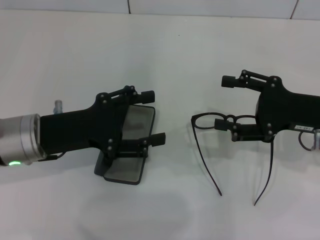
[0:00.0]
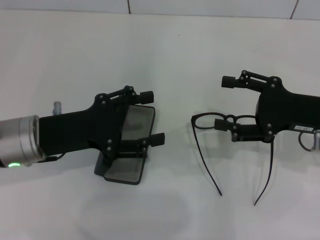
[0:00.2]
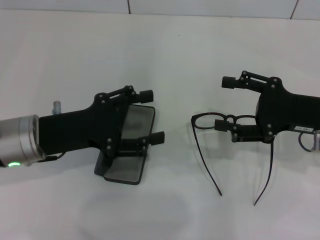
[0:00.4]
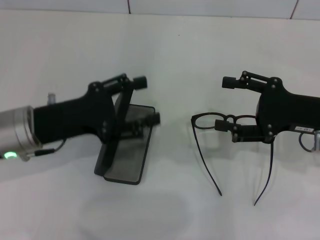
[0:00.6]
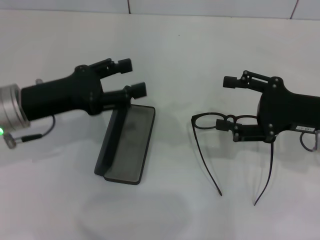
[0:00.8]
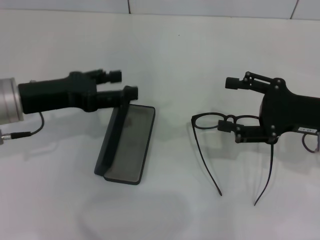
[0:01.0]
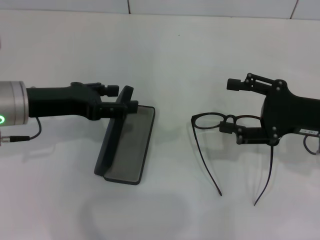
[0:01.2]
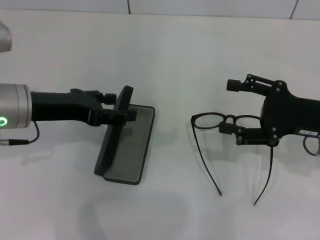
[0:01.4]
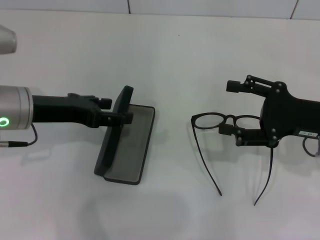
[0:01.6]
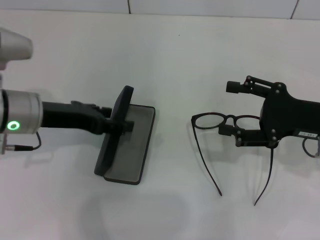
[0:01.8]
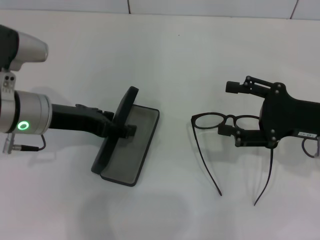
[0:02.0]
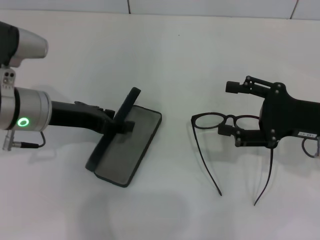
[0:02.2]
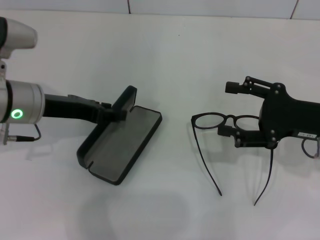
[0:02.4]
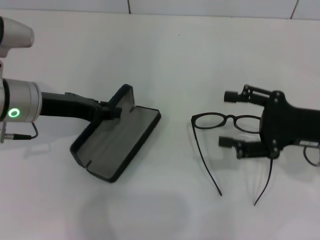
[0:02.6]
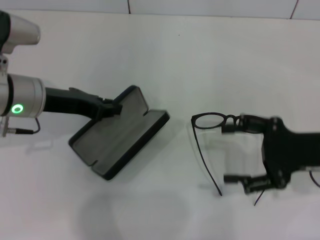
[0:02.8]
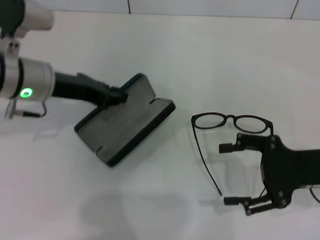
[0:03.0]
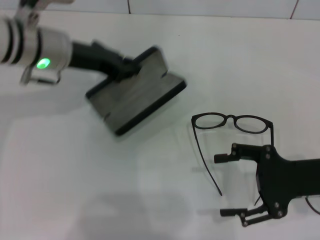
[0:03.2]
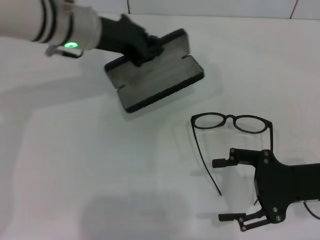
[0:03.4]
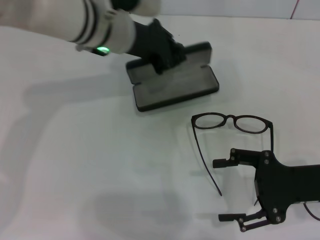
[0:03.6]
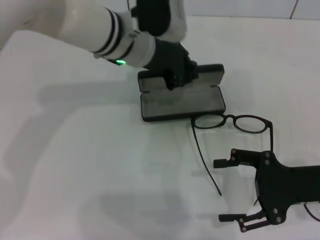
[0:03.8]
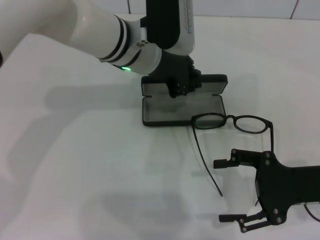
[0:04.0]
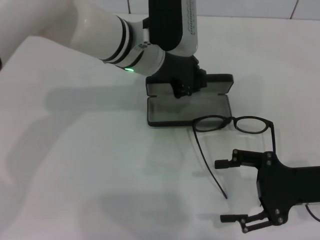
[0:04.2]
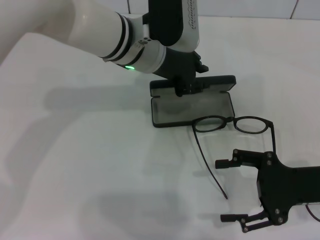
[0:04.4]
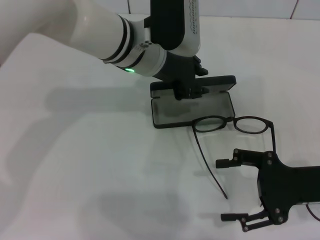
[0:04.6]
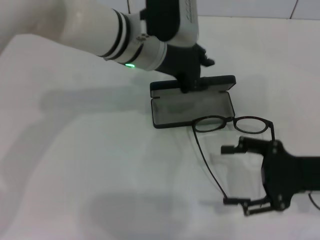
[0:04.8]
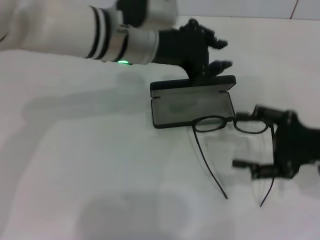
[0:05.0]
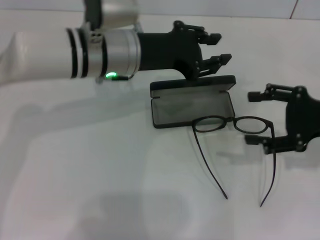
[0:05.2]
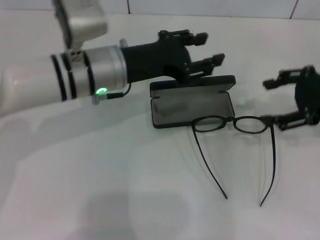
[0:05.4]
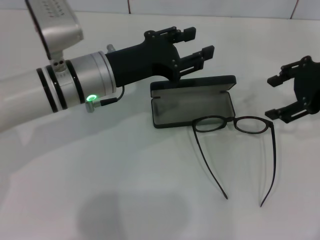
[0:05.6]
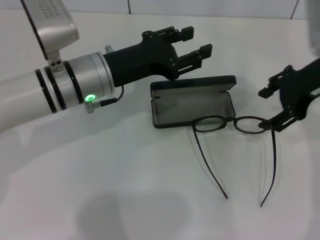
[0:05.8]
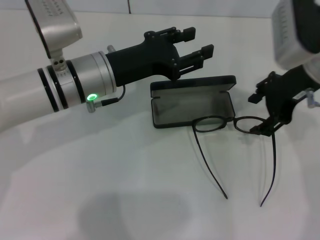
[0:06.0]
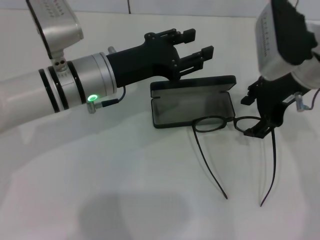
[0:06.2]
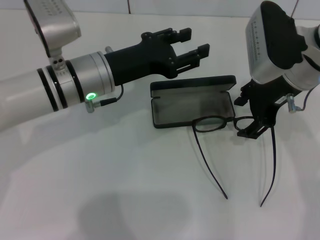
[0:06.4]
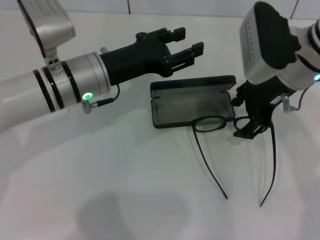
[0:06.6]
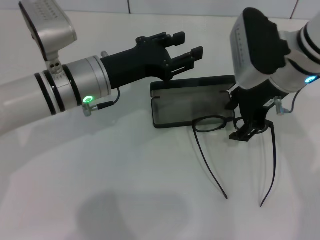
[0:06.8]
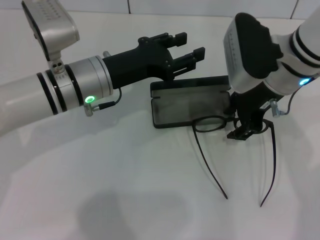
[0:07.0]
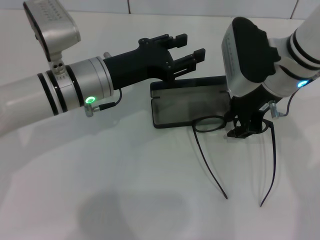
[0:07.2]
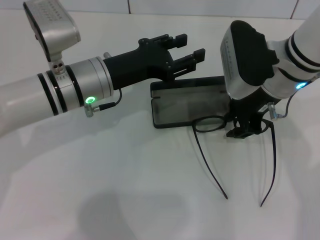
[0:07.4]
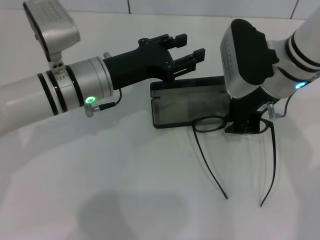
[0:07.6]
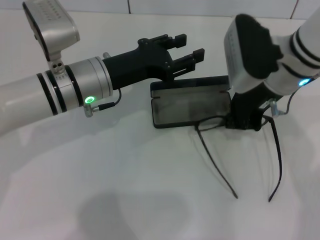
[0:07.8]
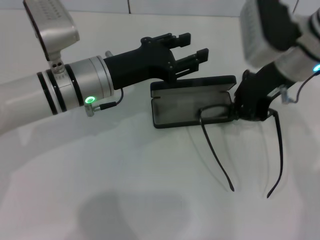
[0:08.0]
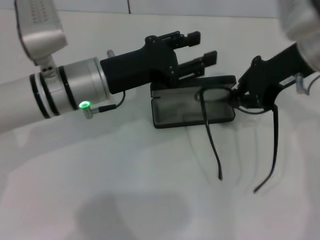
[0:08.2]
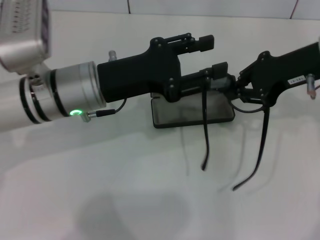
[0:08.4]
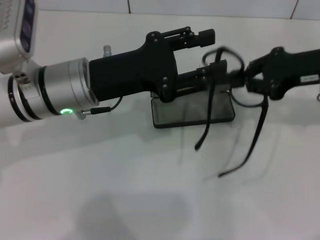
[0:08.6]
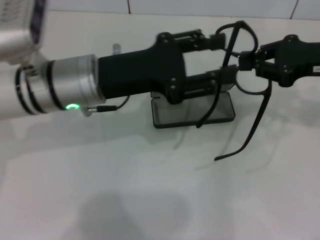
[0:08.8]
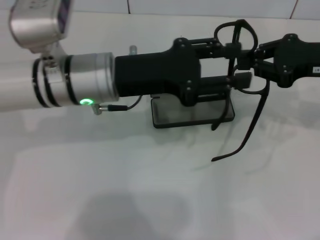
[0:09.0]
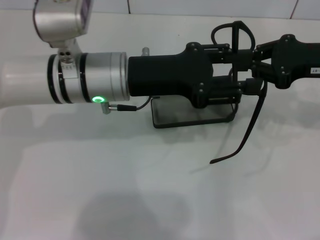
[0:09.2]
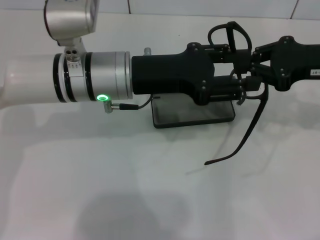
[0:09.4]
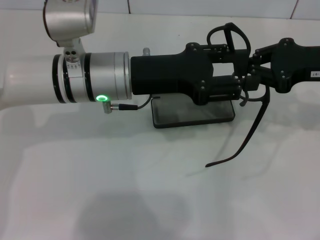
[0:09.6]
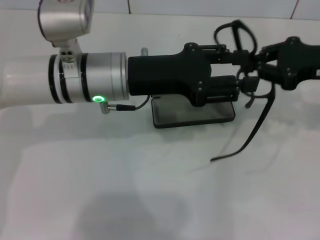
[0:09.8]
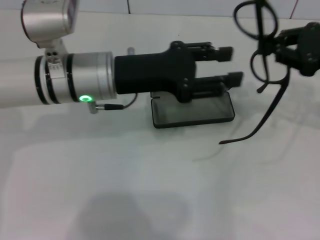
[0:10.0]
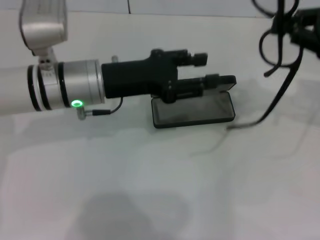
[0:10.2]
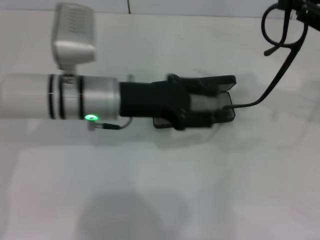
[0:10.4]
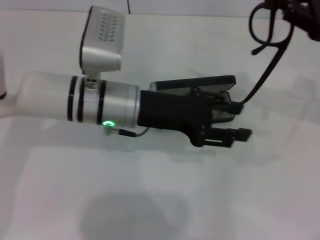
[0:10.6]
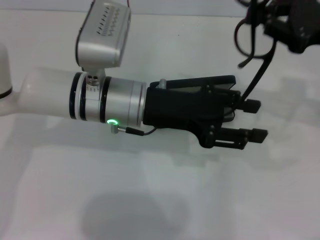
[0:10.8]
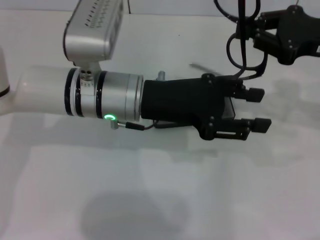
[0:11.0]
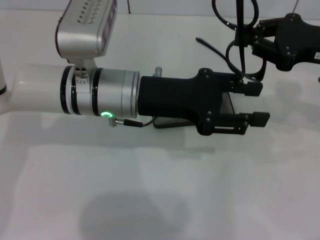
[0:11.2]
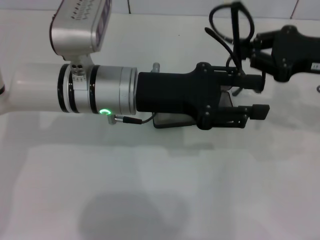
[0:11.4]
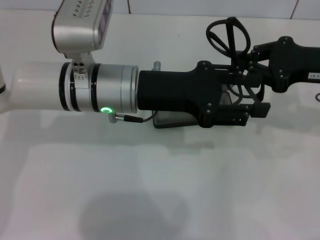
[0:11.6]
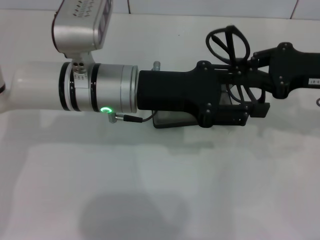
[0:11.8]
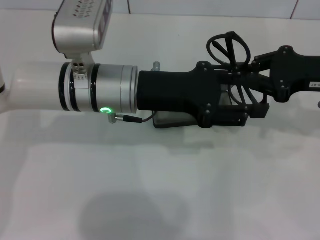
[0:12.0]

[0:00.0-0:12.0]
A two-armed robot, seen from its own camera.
Step, 0:00.0 to 0:02.4: Grab the glasses case with your left hand.
Step, 0:02.8 to 0:04.4: Place the glasses case in the center of the table with your left hand.
Step, 0:04.6 to 0:07.6: Grab the eyeglass frame with your right hand.
0:00.0 to 0:01.6: The left gripper ends up roughly 5 cm from where it was.
0:01.6 to 0:03.0: The left gripper closes its fingers.
0:03.0 to 0:04.4: The left gripper is displaced to the right by some 15 cm.
0:04.4 to 0:06.0: The left gripper moves to the left, about 10 cm, and opens; the right gripper goes approximately 20 cm forward, upward and to the left.
0:06.0 to 0:07.6: The right gripper travels to the left by approximately 5 cm, and closes its fingers.
0:07.6 to 0:09.0: The right gripper goes about 15 cm to the right, and closes. The left gripper changes place by approximately 5 cm.
0:09.0 to 0:10.4: The right gripper ends up approximately 5 cm from where it was.
0:10.4 to 0:12.0: The right gripper ends up roughly 5 cm from where it was.

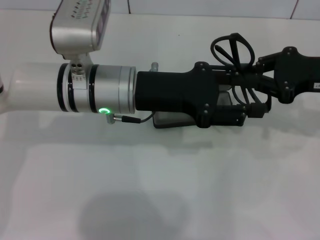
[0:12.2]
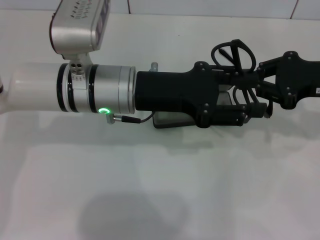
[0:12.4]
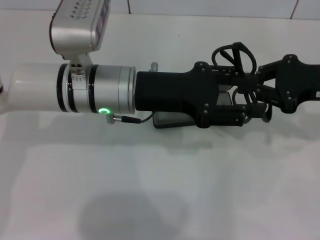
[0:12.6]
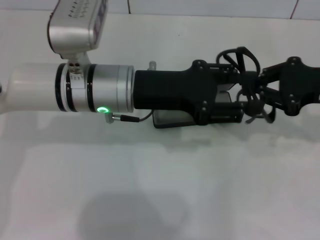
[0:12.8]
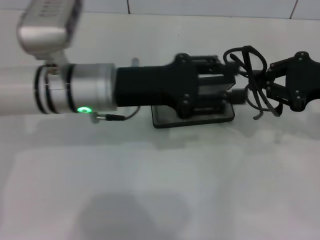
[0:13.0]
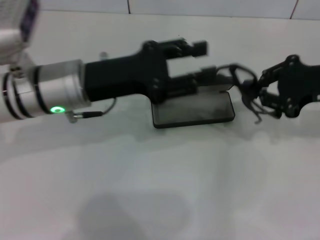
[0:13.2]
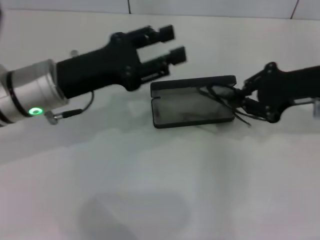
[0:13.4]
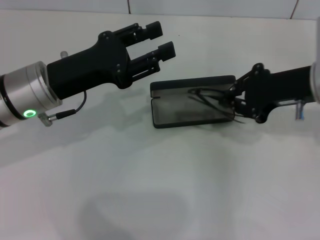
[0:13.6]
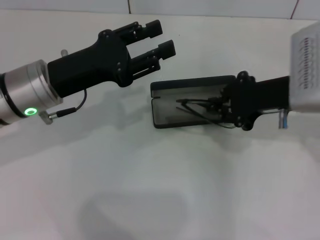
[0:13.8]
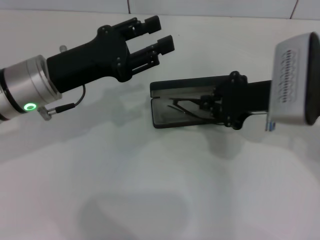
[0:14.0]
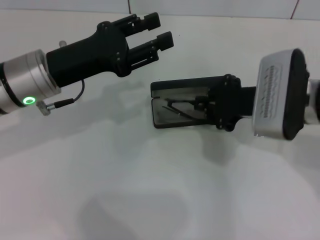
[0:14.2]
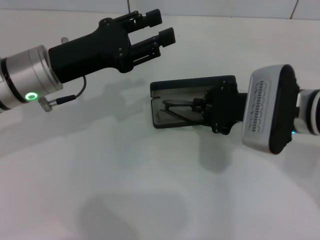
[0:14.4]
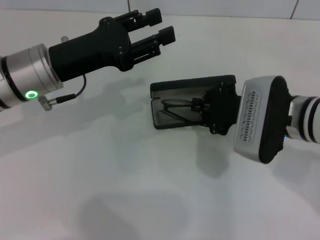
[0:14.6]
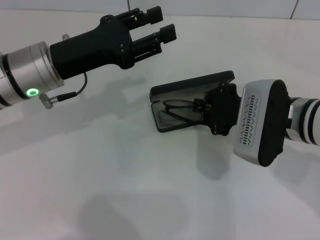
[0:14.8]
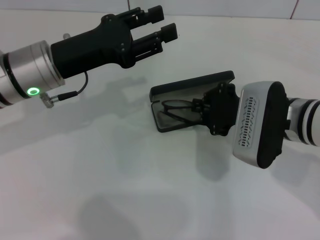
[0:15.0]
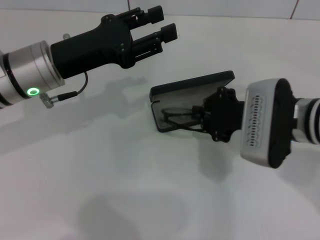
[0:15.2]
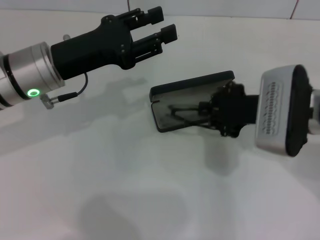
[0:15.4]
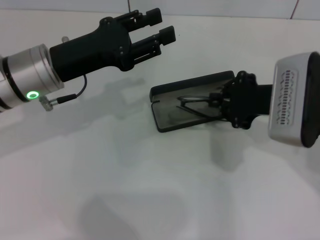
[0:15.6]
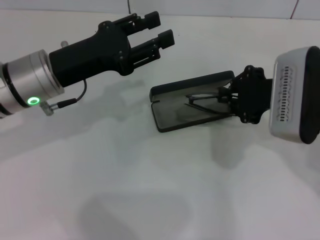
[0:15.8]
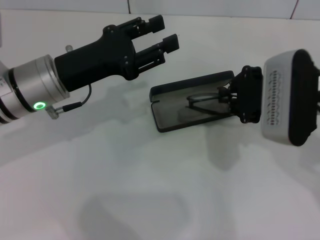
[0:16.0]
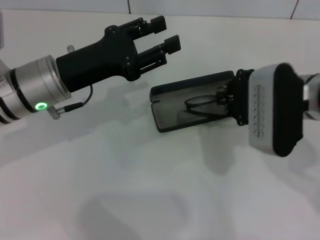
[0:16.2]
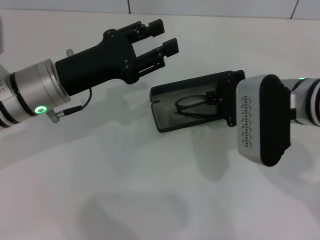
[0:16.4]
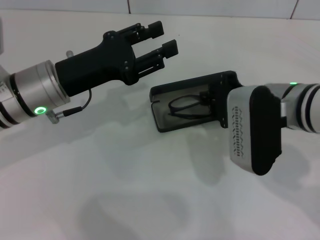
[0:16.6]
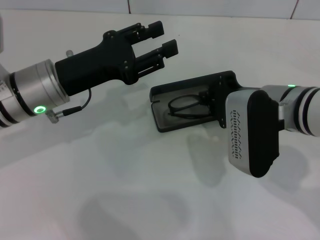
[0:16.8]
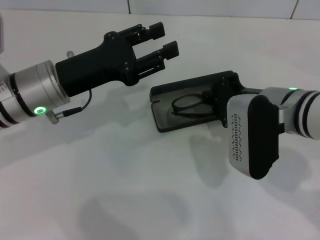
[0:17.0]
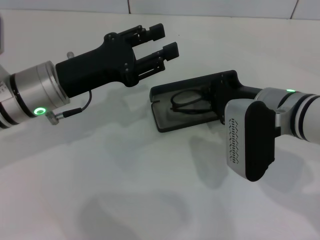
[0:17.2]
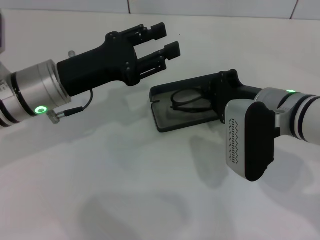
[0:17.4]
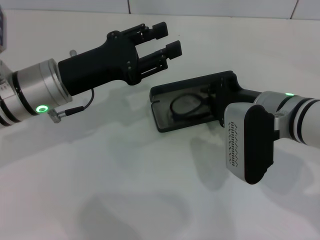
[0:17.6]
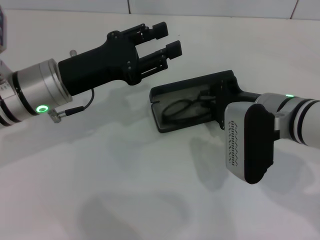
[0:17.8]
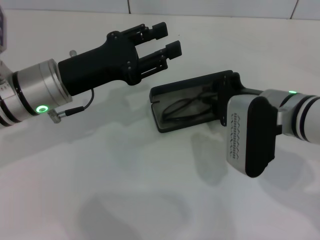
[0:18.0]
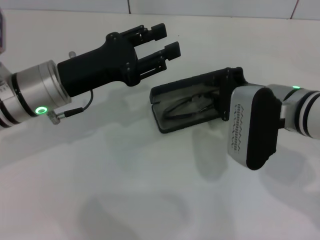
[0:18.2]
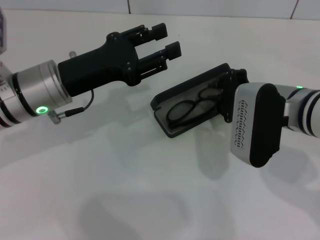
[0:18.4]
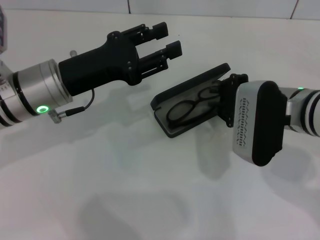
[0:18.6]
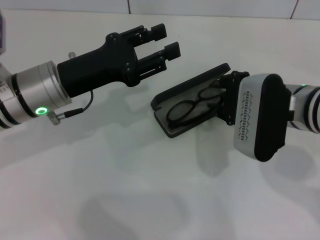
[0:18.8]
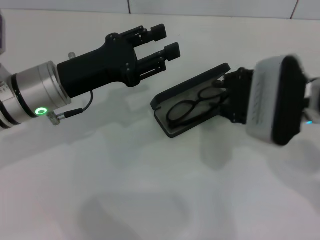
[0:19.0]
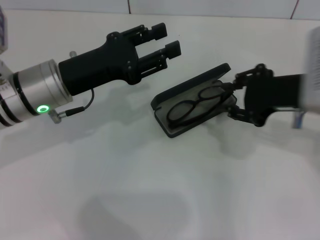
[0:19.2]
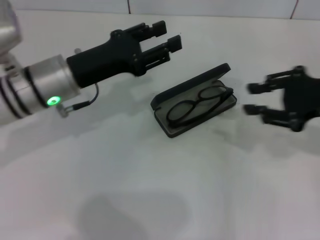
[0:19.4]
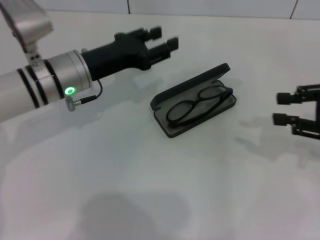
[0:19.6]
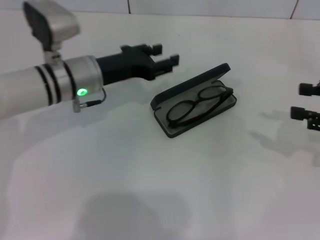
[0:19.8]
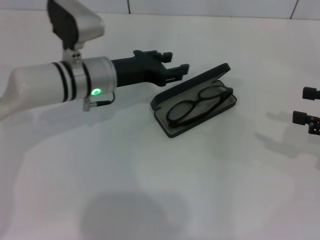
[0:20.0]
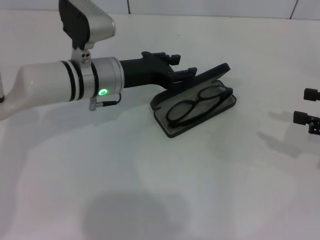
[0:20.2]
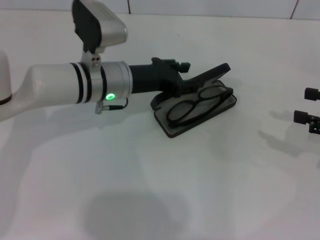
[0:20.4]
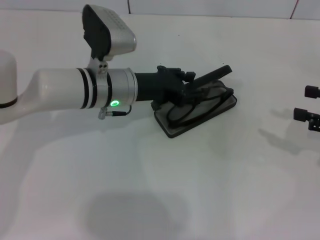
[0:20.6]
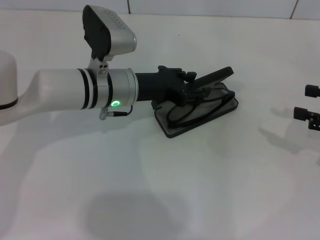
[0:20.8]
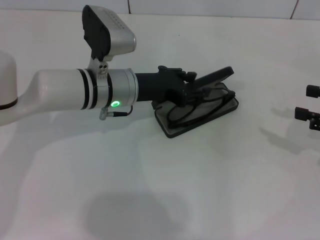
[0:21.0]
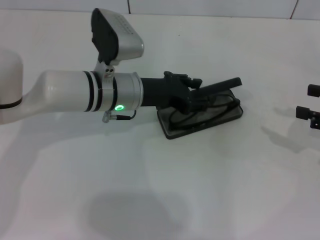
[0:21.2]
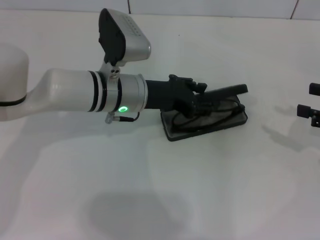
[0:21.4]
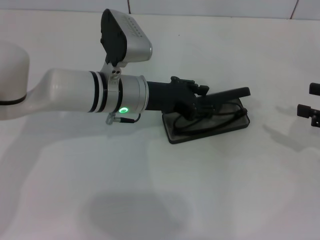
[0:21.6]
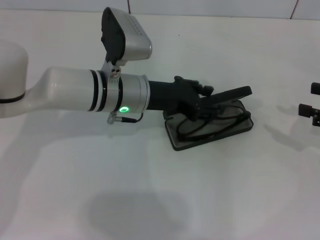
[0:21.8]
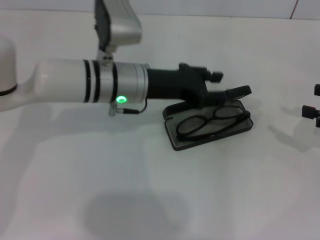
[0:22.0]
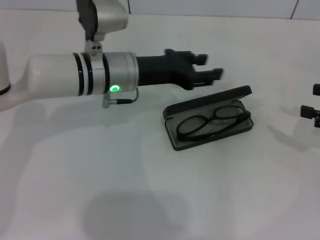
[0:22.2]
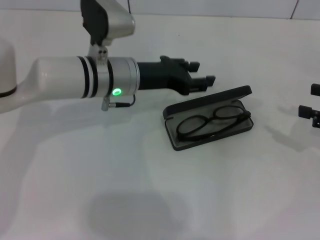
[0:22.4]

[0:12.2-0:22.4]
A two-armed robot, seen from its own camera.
Step, 0:13.0 to 0:18.4: Put the glasses into the case with your right hand.
0:12.2 to 0:13.6: The left gripper is displaced to the left by some 10 cm, while the right gripper travels to the left by roughly 5 cm.
0:13.6 to 0:15.2: The right gripper shifts roughly 10 cm to the left and downward.
0:16.6 to 0:18.0: The grippers move only a little.
0:18.0 to 0:19.4: The right gripper heads to the right and upward, covering approximately 15 cm.
0:19.4 to 0:21.0: The left gripper is displaced to the right by roughly 5 cm, while the right gripper moves to the right and downward, approximately 10 cm.
0:21.0 to 0:22.4: There are only small adjustments of the grippers.
